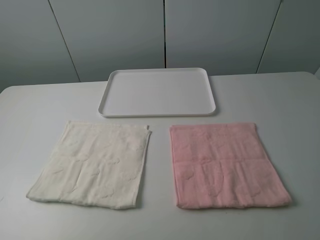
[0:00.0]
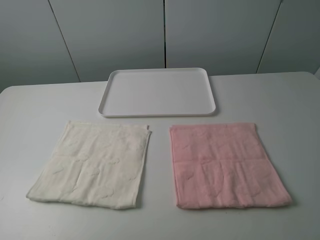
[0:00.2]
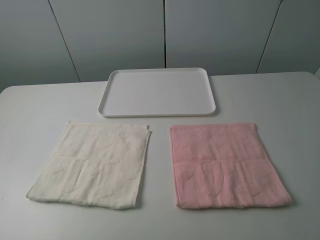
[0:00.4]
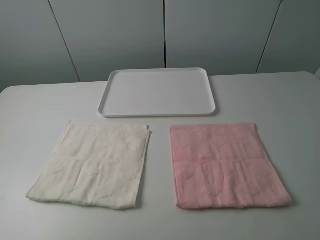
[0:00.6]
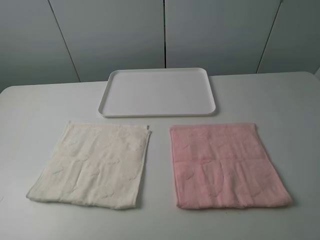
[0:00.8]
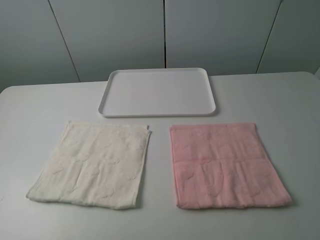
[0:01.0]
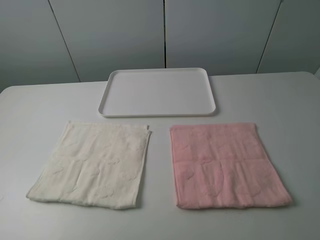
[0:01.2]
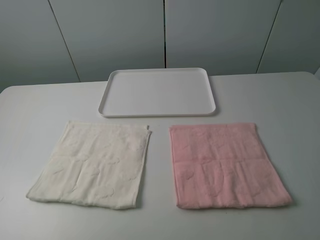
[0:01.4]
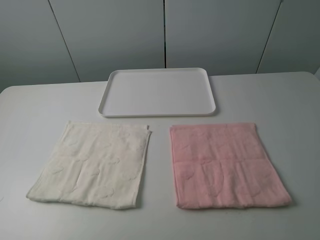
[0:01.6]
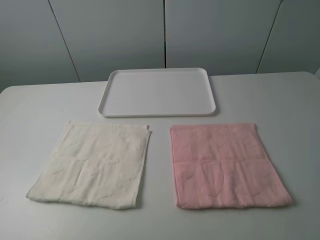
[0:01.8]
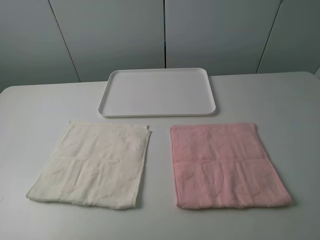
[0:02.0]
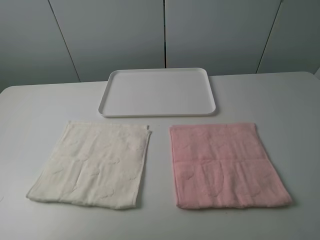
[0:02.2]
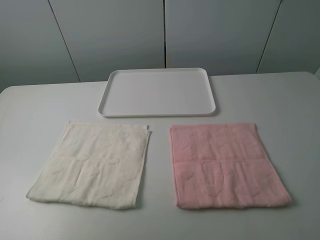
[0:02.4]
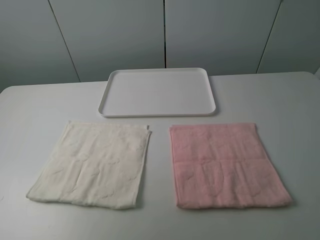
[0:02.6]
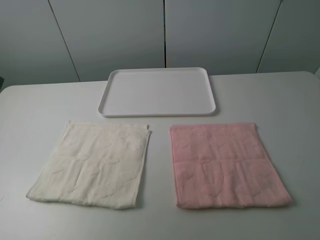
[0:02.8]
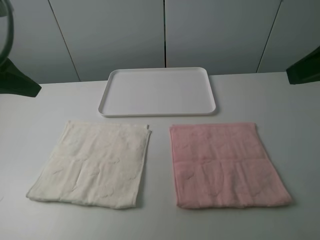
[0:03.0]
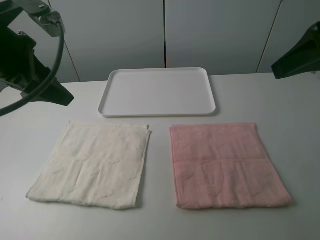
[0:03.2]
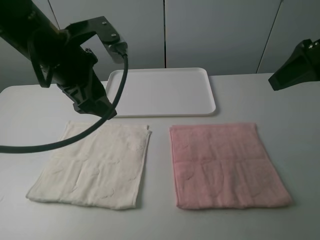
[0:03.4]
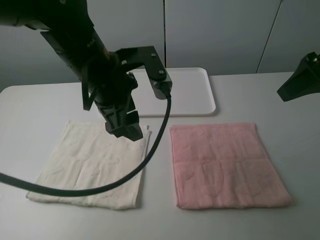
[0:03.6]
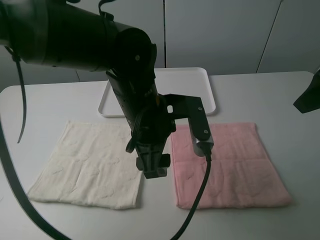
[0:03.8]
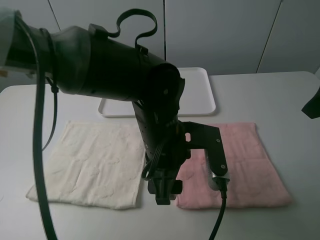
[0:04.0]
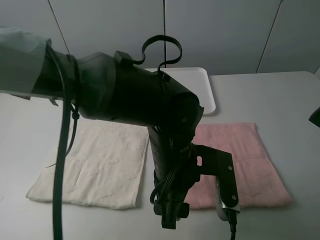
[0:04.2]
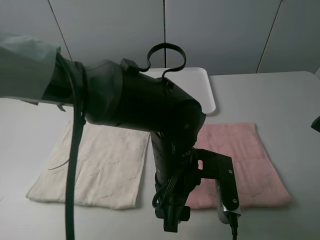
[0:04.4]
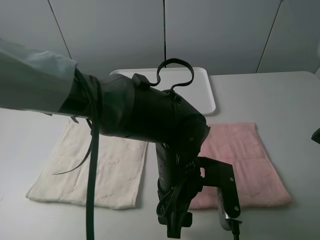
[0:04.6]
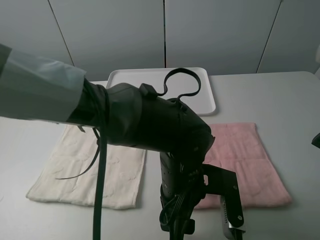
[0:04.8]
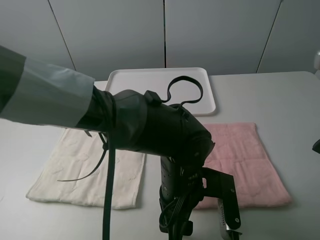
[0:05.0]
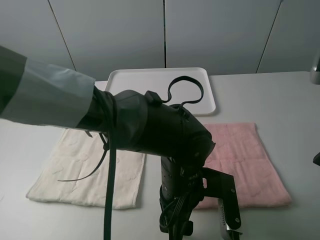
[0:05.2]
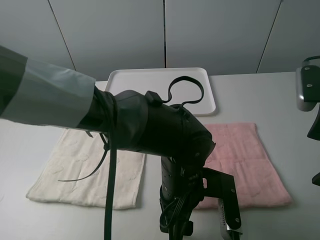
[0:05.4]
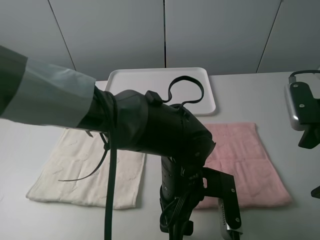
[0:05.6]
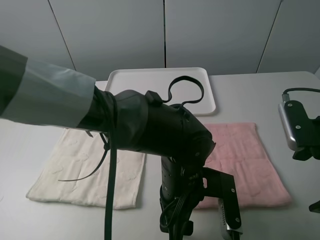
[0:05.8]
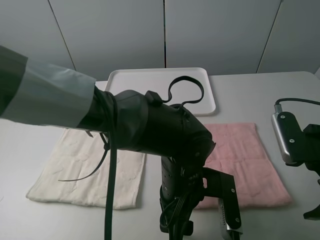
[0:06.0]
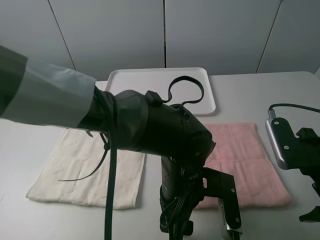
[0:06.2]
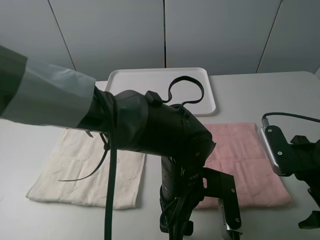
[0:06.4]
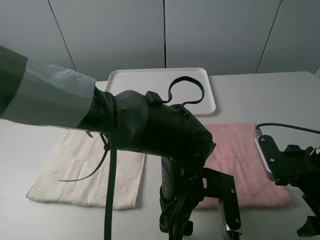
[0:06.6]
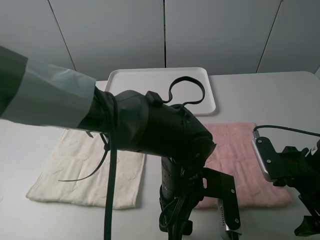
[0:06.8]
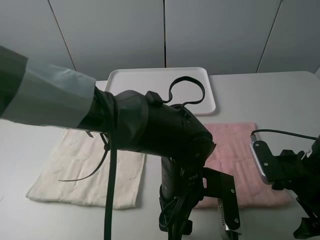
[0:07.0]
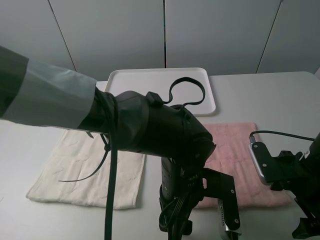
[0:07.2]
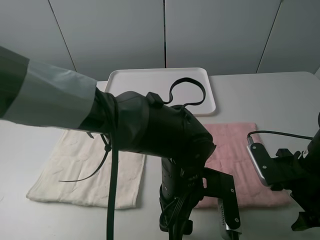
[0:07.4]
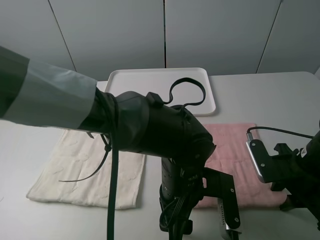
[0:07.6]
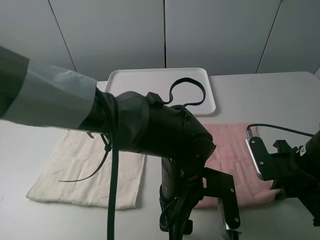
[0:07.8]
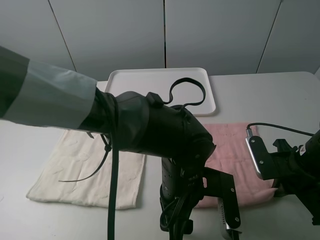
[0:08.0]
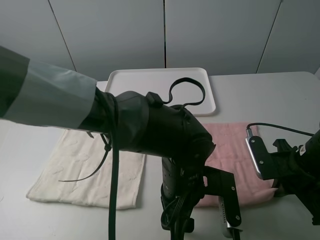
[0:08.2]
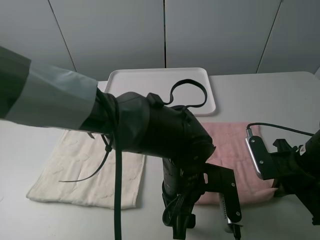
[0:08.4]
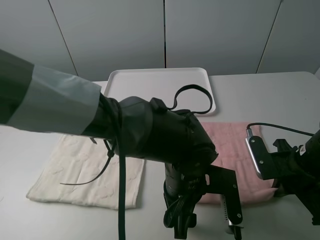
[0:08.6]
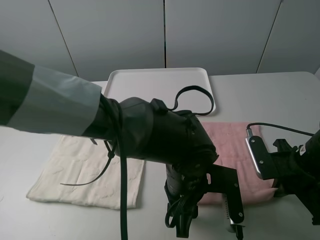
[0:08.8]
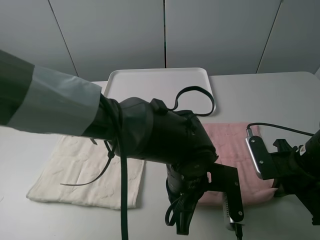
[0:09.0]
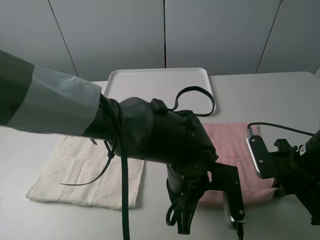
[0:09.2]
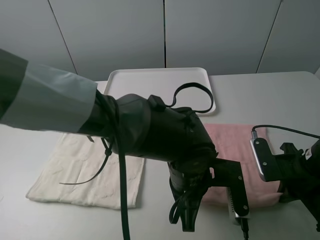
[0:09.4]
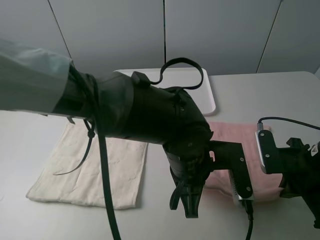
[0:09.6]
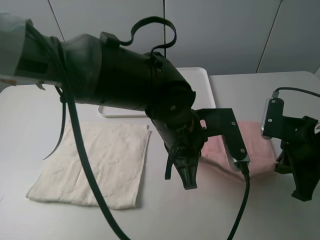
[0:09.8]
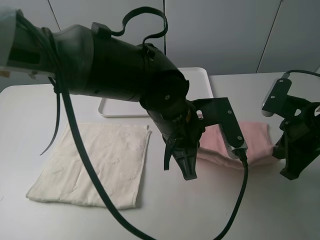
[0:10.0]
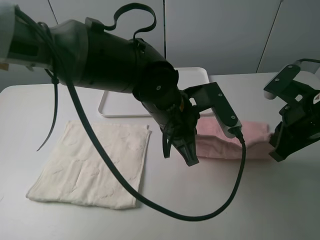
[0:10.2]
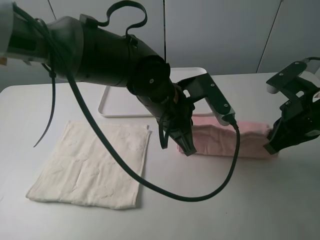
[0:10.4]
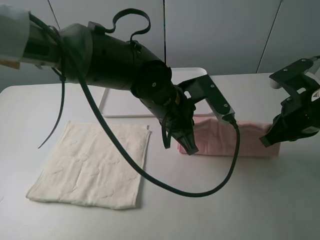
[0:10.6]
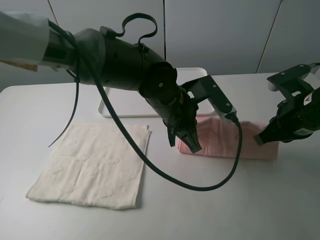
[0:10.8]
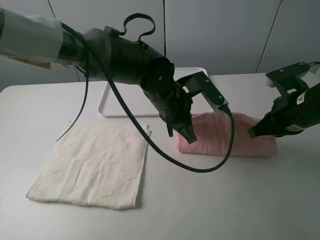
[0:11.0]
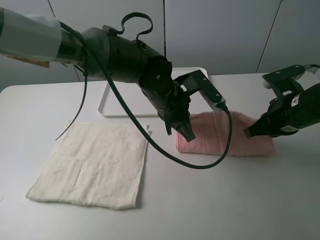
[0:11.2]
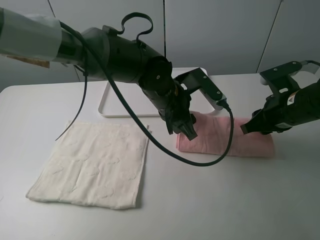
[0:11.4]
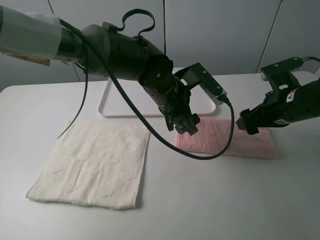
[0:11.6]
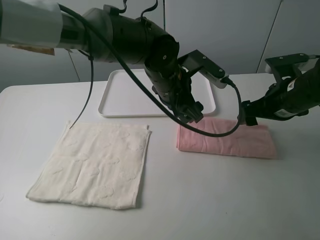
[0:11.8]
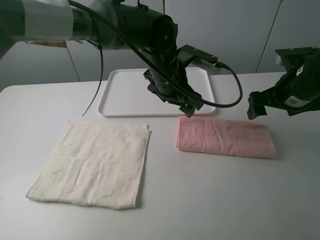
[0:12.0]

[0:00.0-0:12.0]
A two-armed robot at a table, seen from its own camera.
Task of the whole recording: fold one of the towels by two grippers and place it on the tray,then fold another towel by two grippers and place it on the folded towel.
Step, 0.0 to 9.2 s: Grasp the pink towel with the left gripper.
Step, 9.4 to 11.6 s: Fold the pink towel upwards with the left gripper.
0.0 to 1.6 s: Neither gripper changes place.
1.6 to 3.0 s: The two grippers go about 20 cm forward.
3.0 to 4.4 s: The right gripper moves roughly 5 cm. Meanwhile the left gripper goes roughly 35 cm to the right and downward.
4.4 to 6.0 s: The right gripper heads downward and backward, covering some 15 cm.
6.0 to 7.6 s: The right gripper heads downward, covering approximately 10 cm, and closes its fingers.
7.6 to 9.0 s: The right gripper closes; the left gripper closes its fingers.
9.0 to 10.4 s: The right gripper moves upward, some 10 cm. Meanwhile the left gripper goes roughly 10 cm forward and upward.
10.4 to 12.0 s: The grippers both shift forward by about 10 cm. The right gripper opens. The left gripper opens.

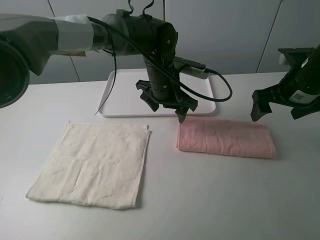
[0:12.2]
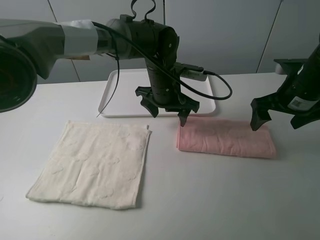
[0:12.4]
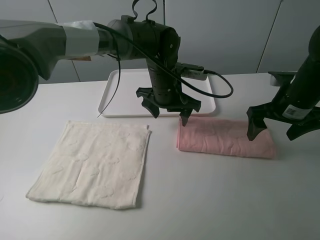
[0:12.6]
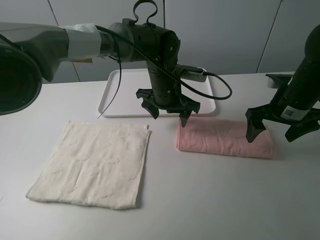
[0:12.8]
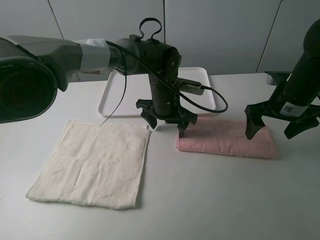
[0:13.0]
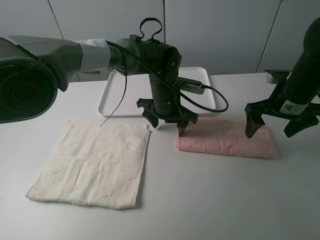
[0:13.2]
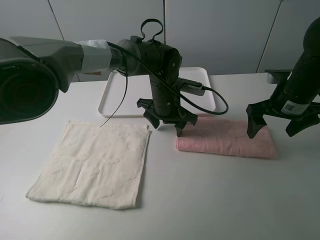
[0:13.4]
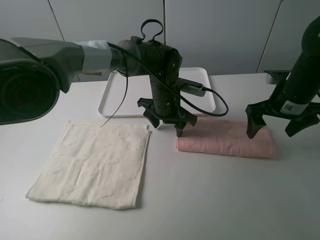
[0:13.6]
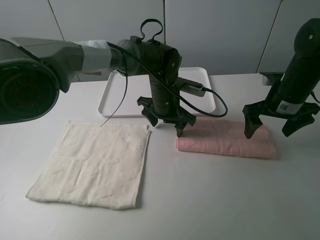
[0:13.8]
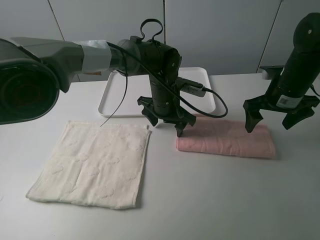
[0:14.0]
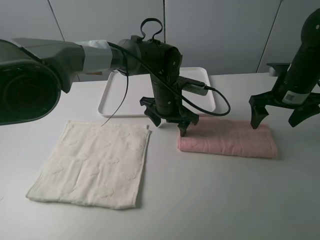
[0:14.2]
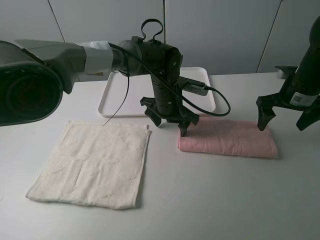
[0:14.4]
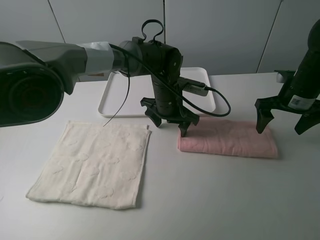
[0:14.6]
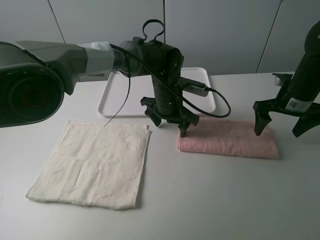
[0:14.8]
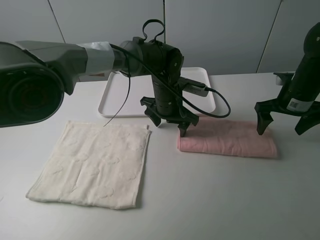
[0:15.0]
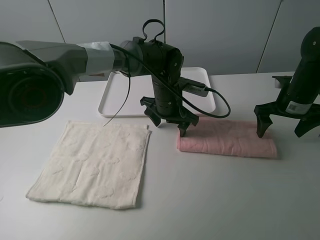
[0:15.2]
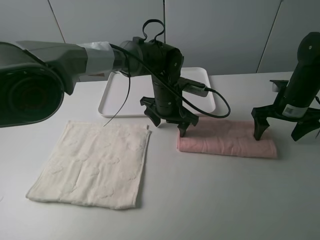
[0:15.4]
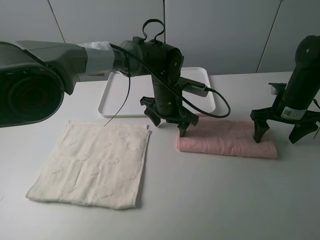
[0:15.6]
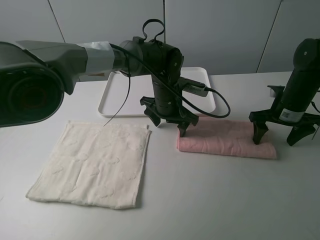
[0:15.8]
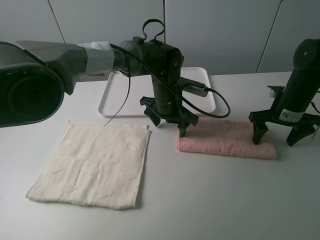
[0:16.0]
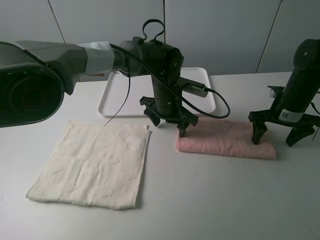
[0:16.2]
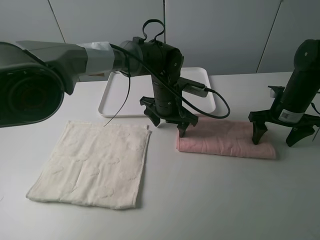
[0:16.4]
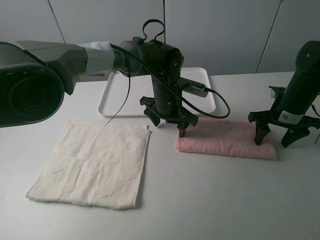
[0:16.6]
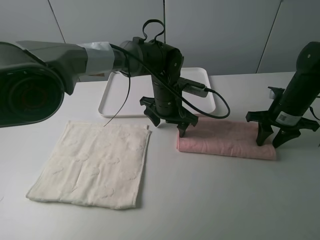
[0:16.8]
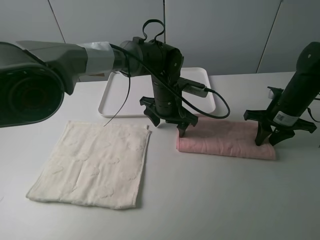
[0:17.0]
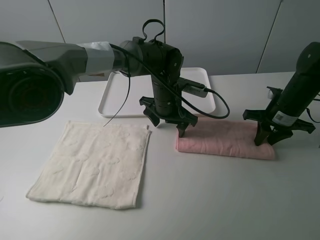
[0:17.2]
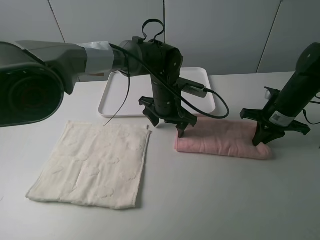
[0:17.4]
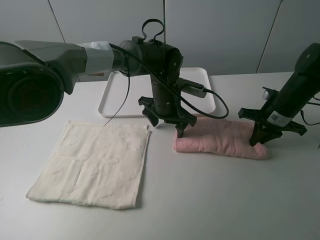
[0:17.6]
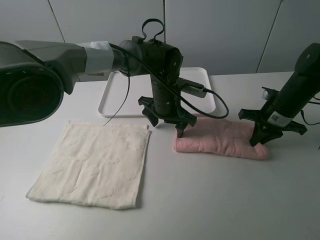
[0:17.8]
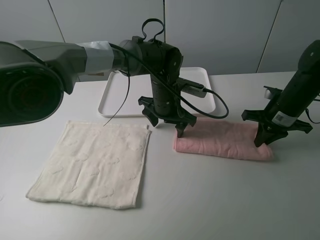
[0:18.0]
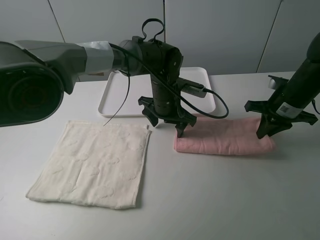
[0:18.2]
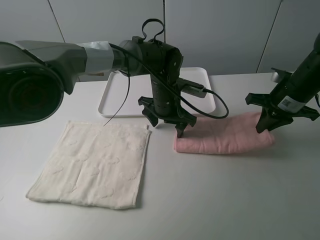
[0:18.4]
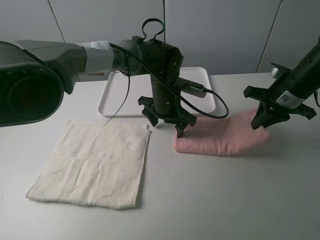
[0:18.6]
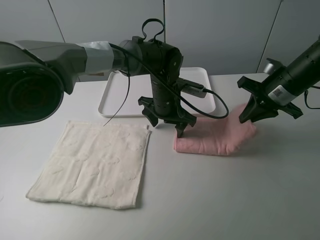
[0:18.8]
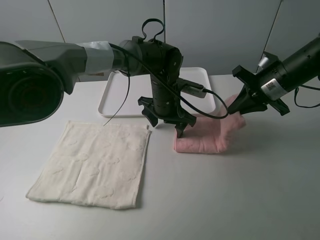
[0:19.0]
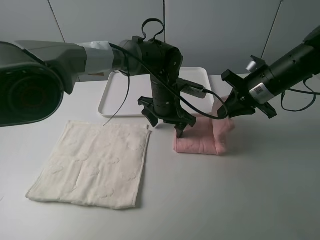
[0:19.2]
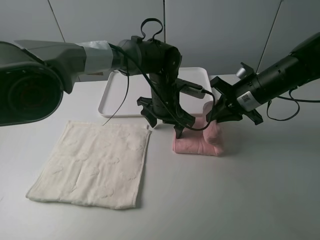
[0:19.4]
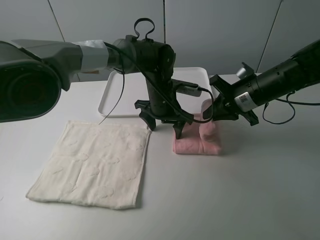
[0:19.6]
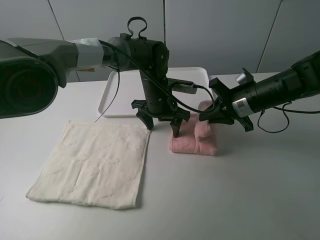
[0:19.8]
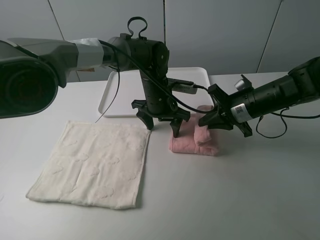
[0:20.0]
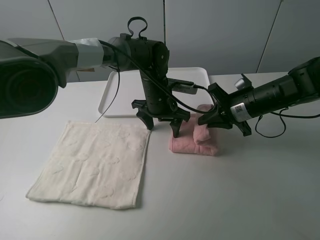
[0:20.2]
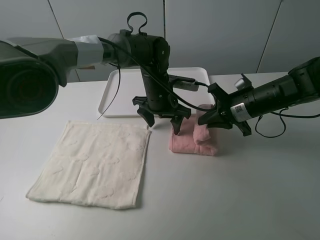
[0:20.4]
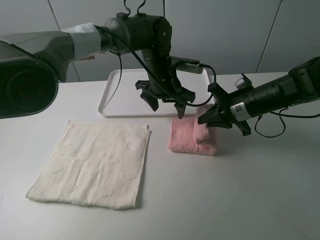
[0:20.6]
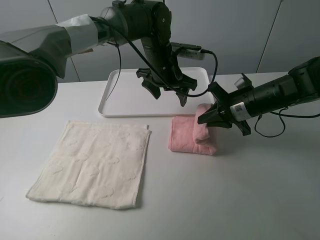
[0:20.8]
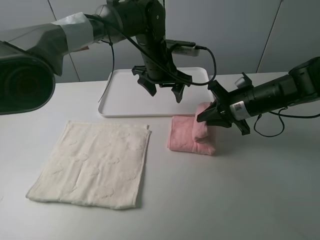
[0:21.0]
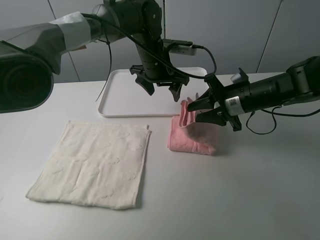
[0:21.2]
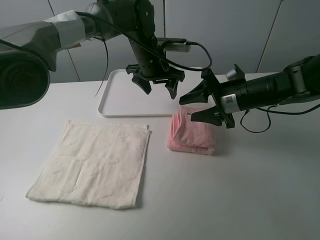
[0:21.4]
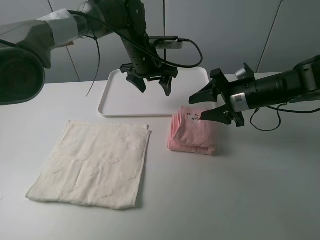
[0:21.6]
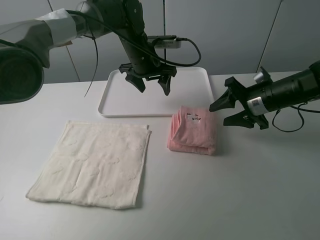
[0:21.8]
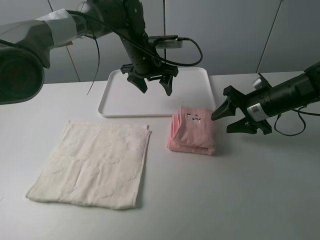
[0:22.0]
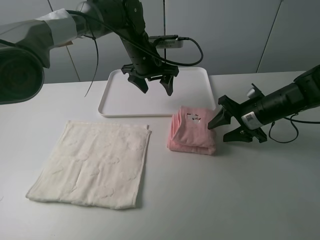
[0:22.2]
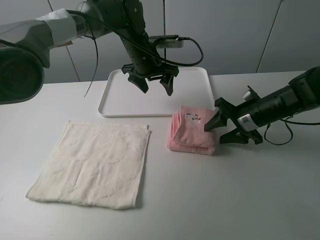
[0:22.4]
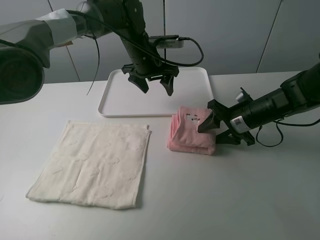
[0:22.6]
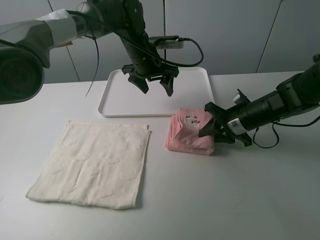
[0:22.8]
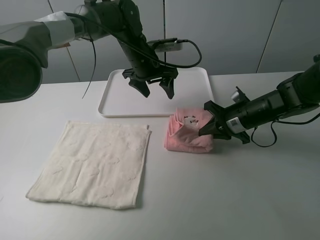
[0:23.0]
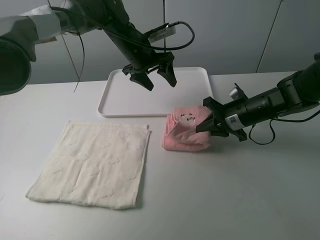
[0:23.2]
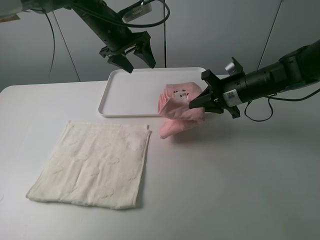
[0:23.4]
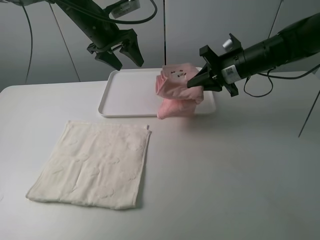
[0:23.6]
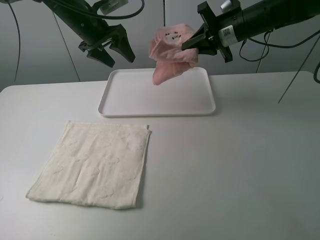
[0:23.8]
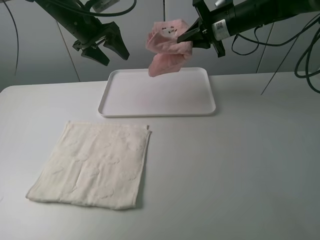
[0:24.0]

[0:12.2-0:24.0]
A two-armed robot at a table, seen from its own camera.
Task of the whole recording: fold one of the towels by two grippers and place it on the tray,then fold another towel by two grippers and place it on the folded towel.
Step, 12.2 to 13.4 s: Press the pink towel with the left gripper.
Step, 13.6 to 17.2 s: Grasp the pink towel with the right gripper.
Step, 17.4 to 21.6 s: Fold the pink towel from right to left with right gripper.
Step, 21.8 to 22.8 s: Grasp the pink towel with the right gripper.
13.6 to 15.2 s: The right gripper ends up roughly 5 cm from where it was.
15.2 to 16.6 s: The right gripper closes.
16.6 to 18.2 s: The right gripper closes.
18.2 to 19.6 s: The right gripper is displaced to the left by about 10 cm.
19.6 to 21.0 s: The left gripper travels upward by about 5 cm.
21.0 to 22.6 s: The right gripper opens its fingers.
22.6 to 24.0 s: The right gripper goes about 20 cm forward and upward, and closes its fingers. Meanwhile the left gripper moves to the left and upward, about 15 cm.
